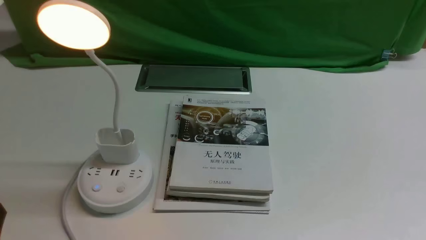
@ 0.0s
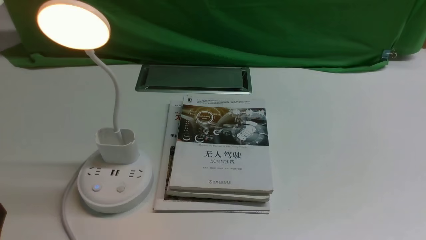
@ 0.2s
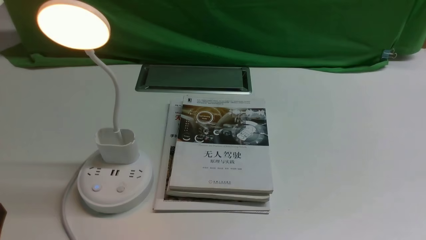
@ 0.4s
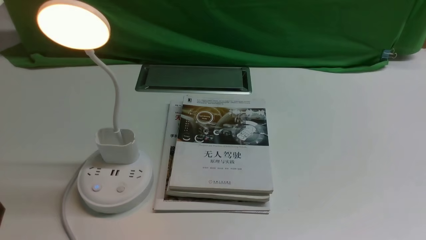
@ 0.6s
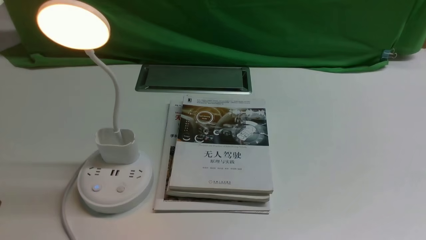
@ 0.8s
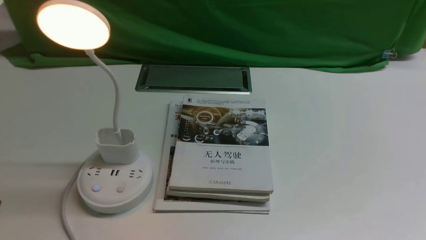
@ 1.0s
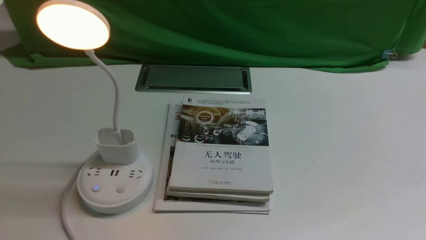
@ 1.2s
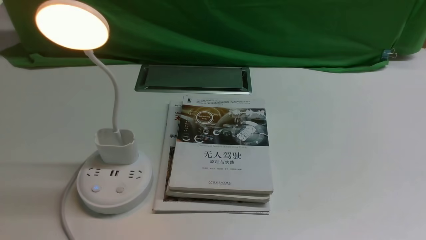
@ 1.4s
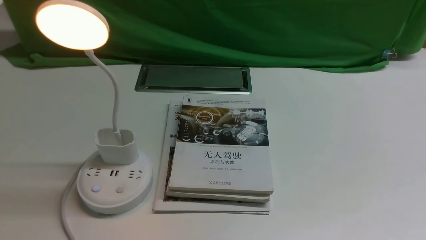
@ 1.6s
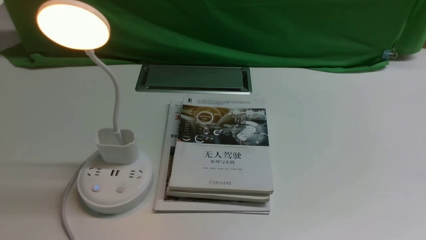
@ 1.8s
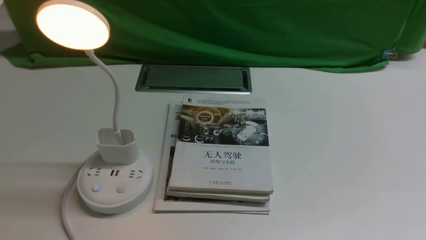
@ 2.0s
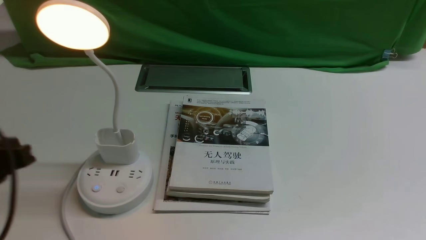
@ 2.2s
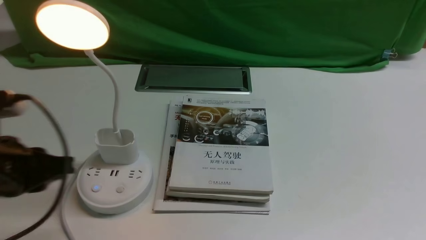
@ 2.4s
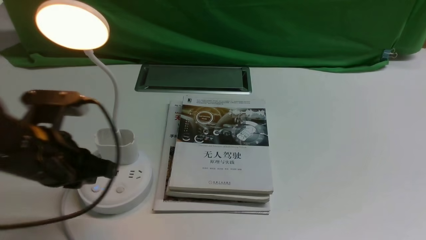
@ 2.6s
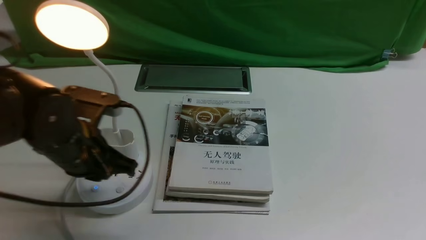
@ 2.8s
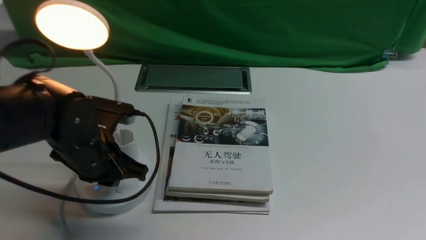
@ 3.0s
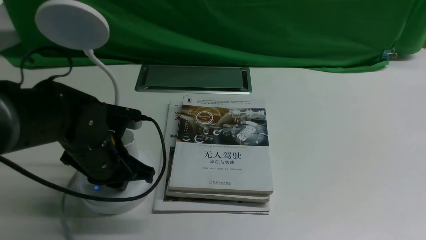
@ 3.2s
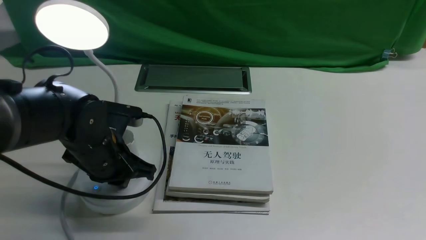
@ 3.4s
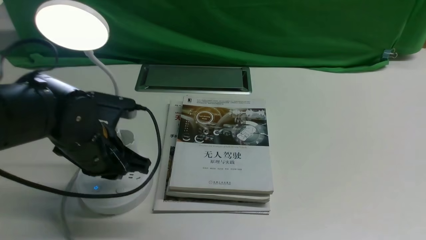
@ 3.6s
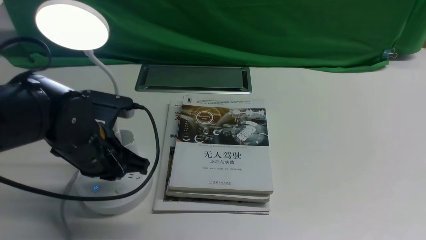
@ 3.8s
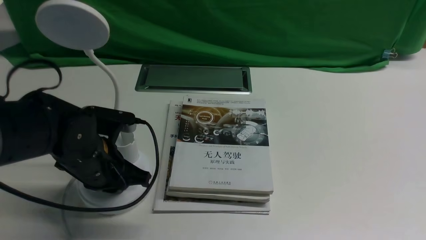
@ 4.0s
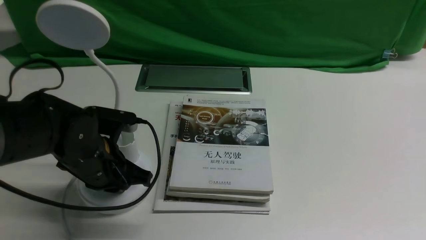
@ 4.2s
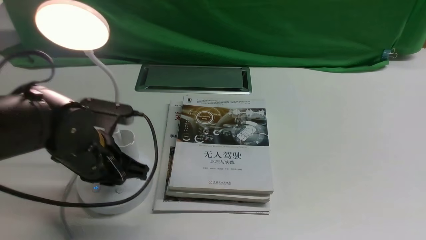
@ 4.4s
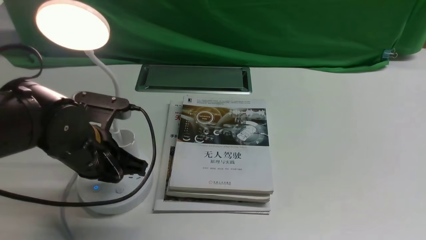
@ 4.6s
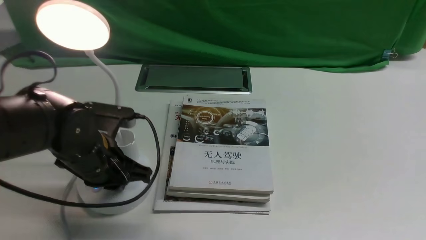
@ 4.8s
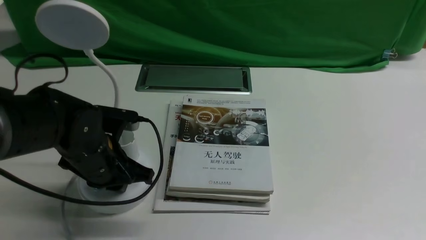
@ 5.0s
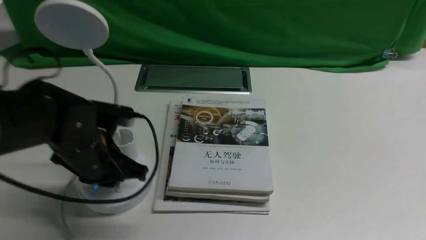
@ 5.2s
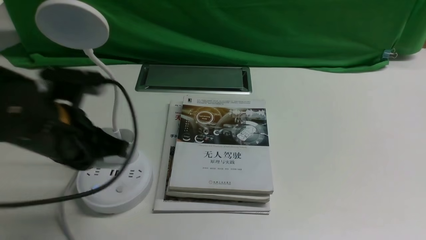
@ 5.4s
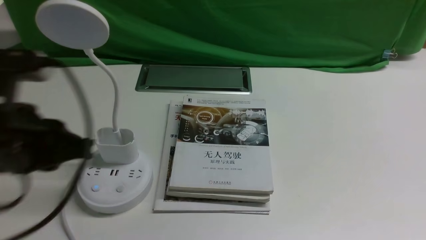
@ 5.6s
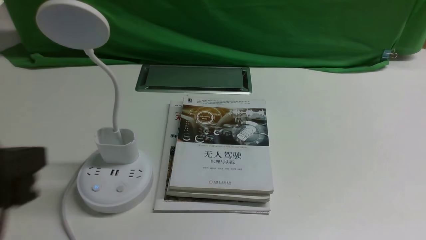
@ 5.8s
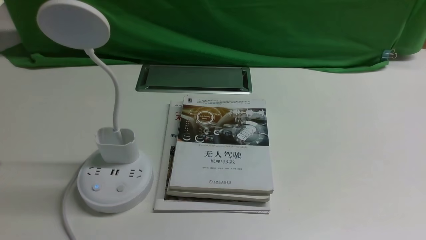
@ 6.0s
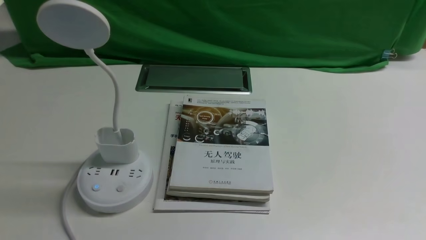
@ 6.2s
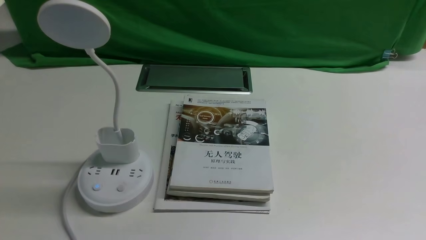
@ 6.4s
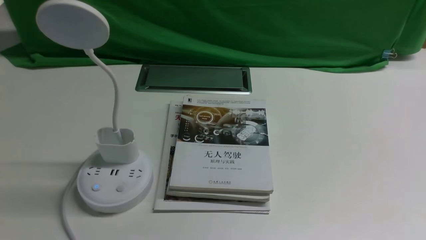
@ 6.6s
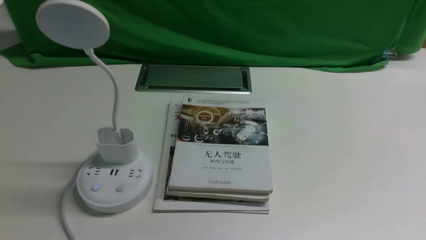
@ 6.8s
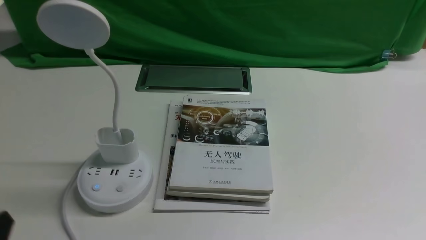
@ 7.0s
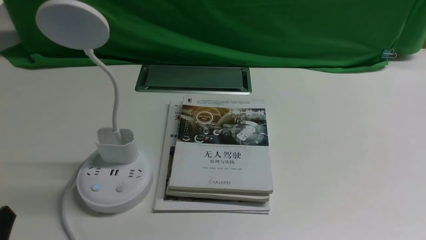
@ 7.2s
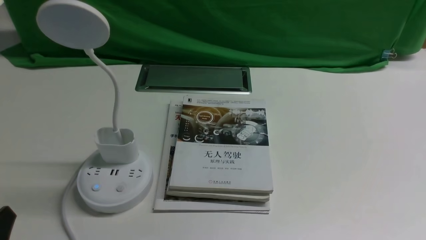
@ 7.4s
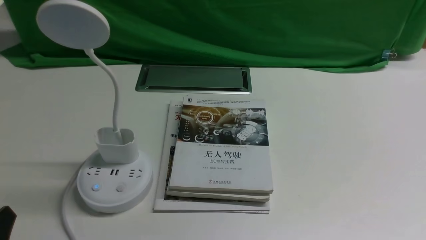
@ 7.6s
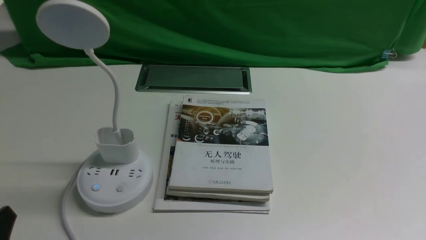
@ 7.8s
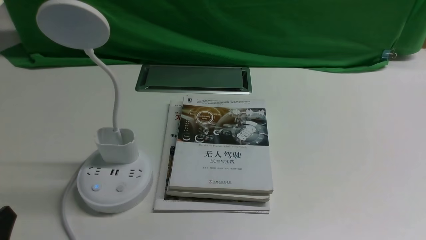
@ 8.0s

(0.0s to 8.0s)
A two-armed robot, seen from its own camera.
Task of the whole recording: turn off the desk lamp on the white desktop by hand.
Step, 0.0s - 5.2s: use the left arm to press the button switch on the lamp holder.
0.0s - 1.6s: The left gripper moves upward, about 10 cm.
1.6s - 3.2s: The left gripper heads forward, to the right and downward, covering roughly 25 cm.
4.8s - 6.4s: The left gripper heads backward and upward, covering some 30 cm.
